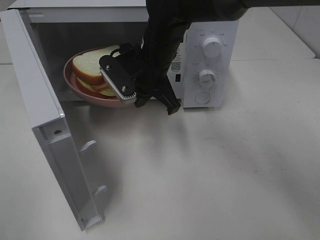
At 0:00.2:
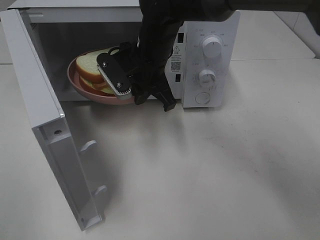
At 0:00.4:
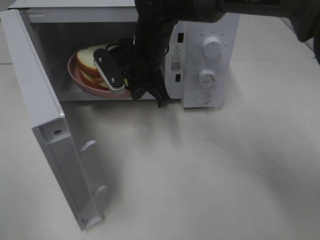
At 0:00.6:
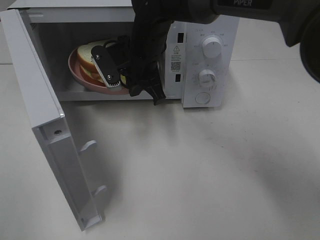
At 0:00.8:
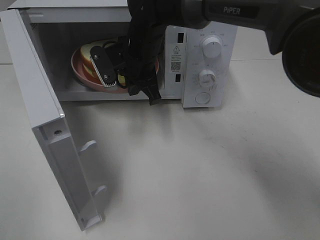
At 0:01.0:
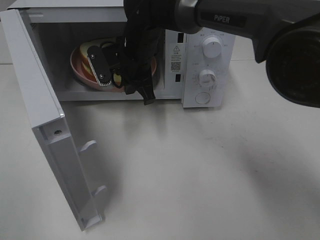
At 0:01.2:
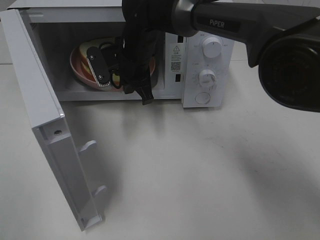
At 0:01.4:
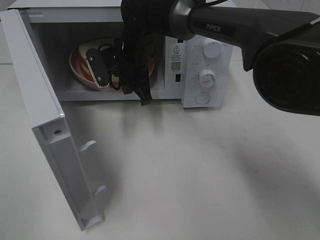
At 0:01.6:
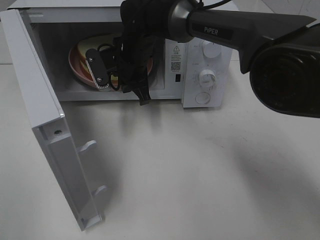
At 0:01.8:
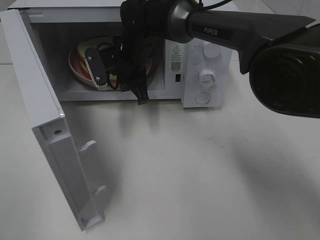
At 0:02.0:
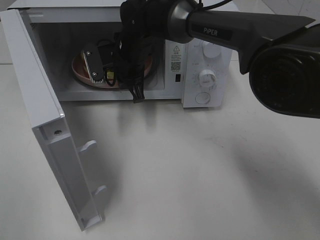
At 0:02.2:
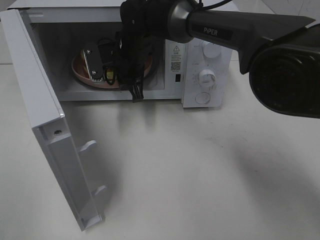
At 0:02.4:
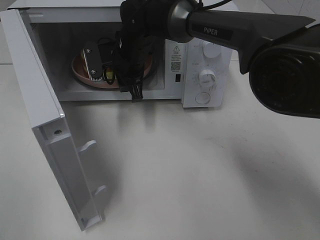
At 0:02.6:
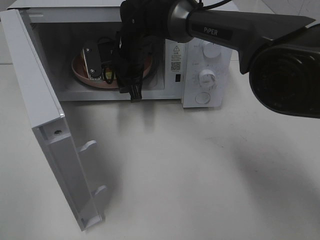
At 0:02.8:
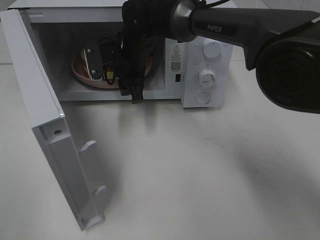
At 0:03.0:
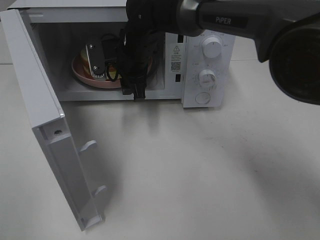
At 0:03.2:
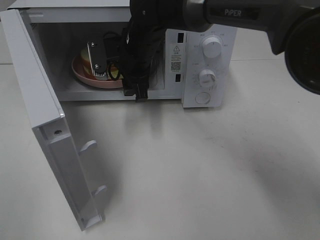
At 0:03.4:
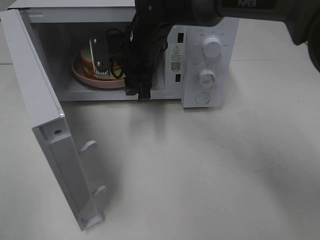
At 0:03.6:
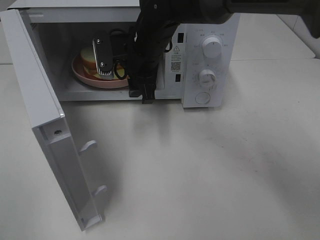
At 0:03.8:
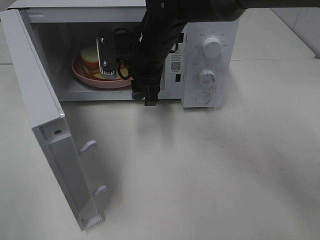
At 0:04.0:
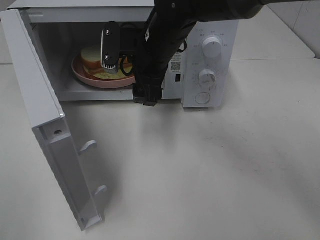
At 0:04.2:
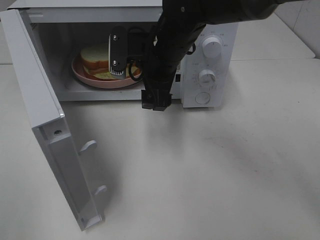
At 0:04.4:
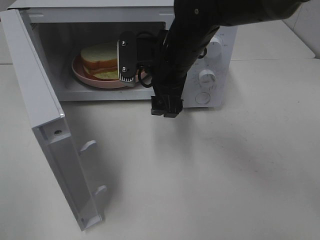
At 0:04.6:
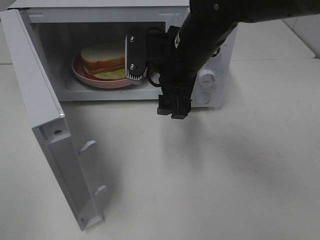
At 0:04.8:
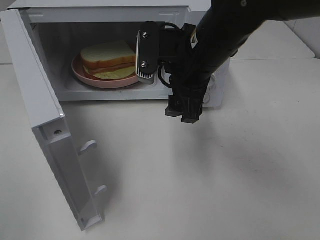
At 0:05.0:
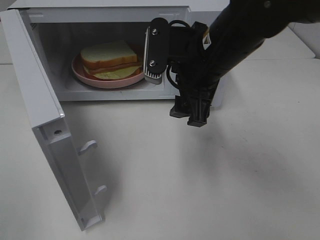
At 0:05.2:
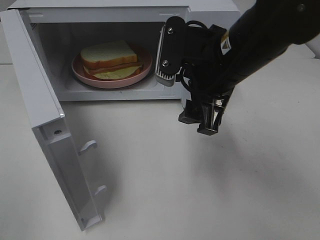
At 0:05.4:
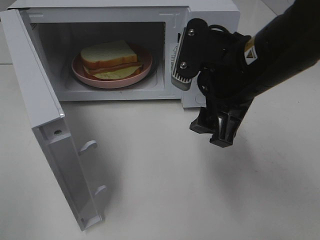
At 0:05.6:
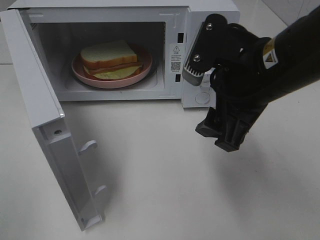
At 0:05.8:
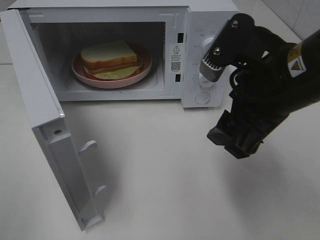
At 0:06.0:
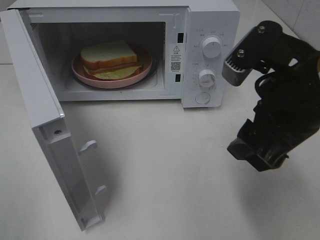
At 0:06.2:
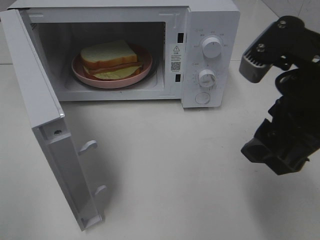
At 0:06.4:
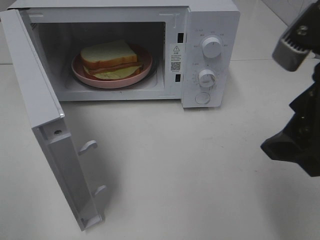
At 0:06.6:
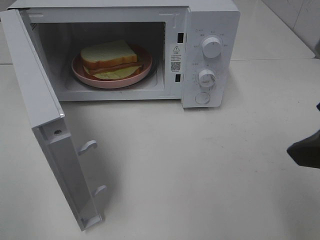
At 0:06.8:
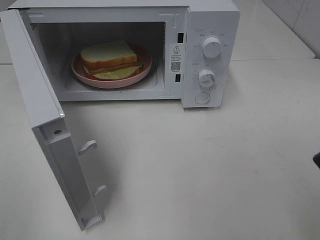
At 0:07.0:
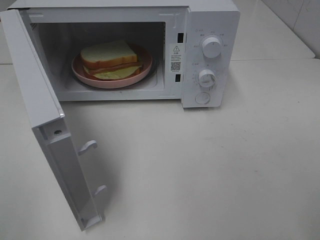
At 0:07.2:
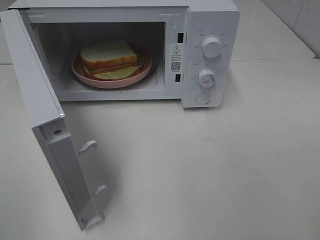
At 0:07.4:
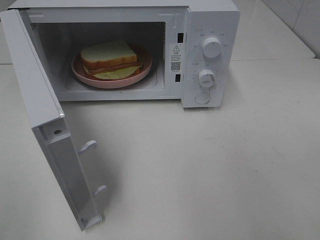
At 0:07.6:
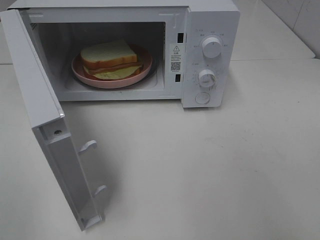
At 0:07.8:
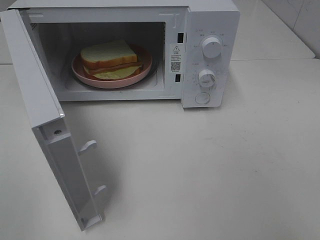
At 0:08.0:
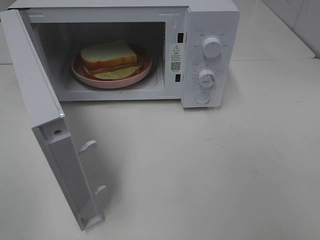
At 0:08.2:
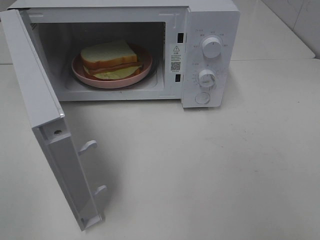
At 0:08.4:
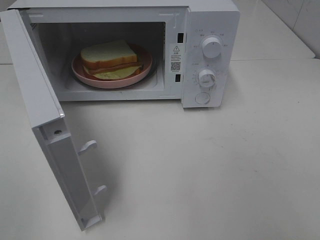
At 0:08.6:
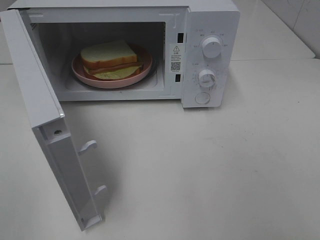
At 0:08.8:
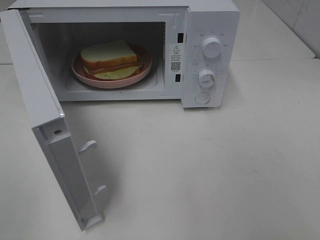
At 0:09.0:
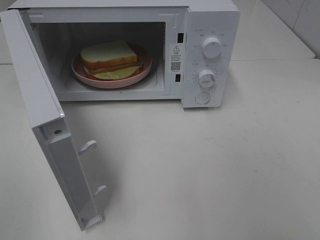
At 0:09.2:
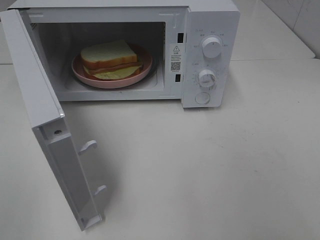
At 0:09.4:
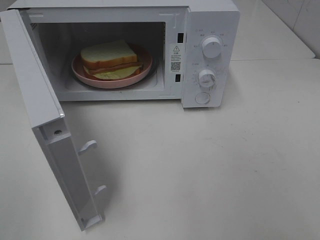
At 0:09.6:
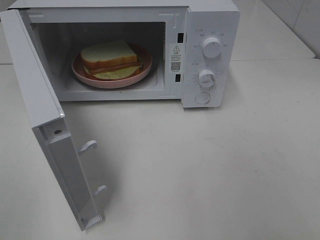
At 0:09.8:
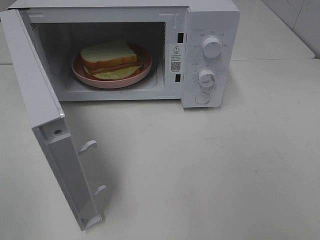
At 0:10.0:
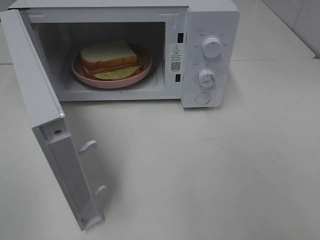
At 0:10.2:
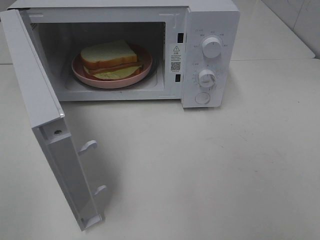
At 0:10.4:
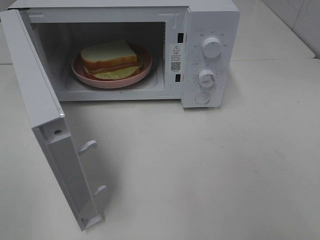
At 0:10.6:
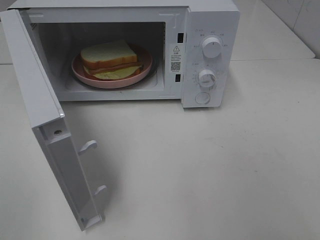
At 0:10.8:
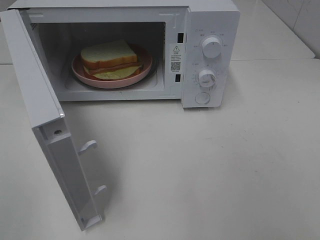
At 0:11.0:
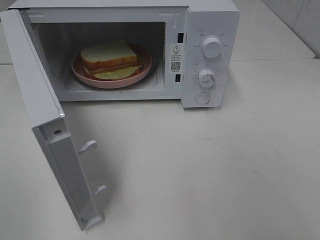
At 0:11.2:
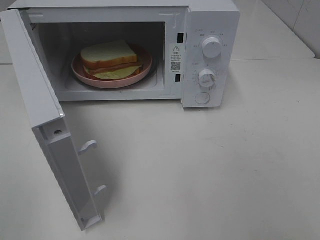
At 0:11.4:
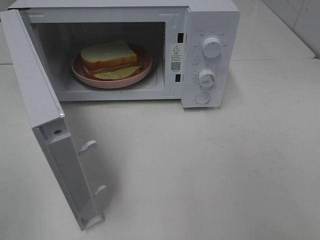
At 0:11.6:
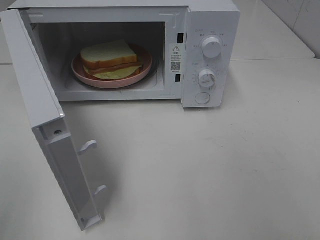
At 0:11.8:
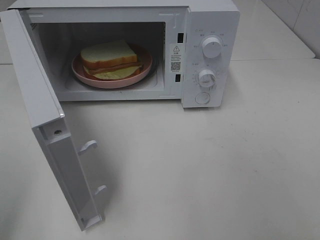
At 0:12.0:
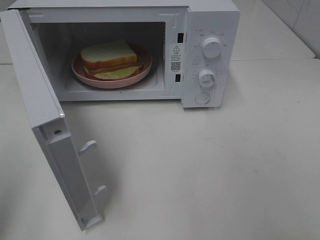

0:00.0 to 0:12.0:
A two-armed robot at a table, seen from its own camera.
Task of the whole recording: Heat Sandwich.
Step, 0:00.0 to 0:03.4: Right hand: place the plate in the microwave.
0:00.0 to 0:01.6: The right gripper is displaced forward by about 5 cm.
0:01.6 to 0:03.0: The right gripper opens.
0:03.0 to 0:04.4: The right gripper heads backward and to the right, covering approximately 10 cm, and opens.
0:04.4 to 0:06.0: The right gripper heads backward and to the right, covering roughly 20 cm.
0:06.0 to 0:07.6: The right gripper moves backward and to the right, approximately 15 cm.
0:09.0 to 0:10.4: The two grippers keep their place.

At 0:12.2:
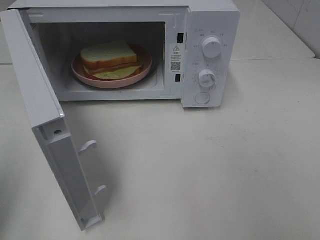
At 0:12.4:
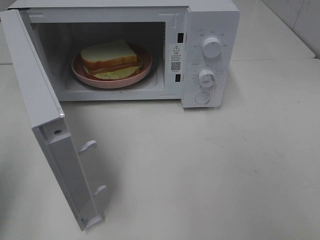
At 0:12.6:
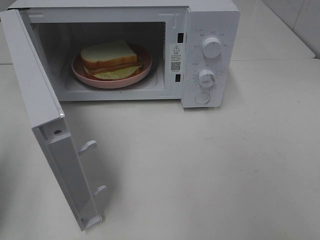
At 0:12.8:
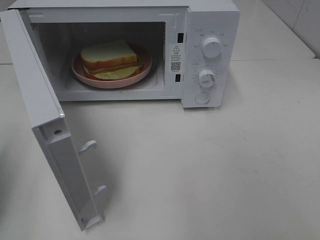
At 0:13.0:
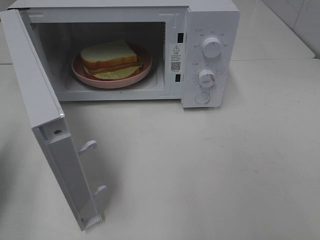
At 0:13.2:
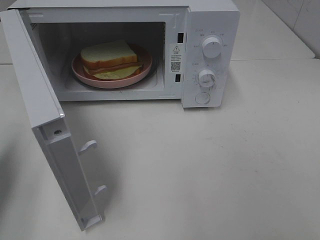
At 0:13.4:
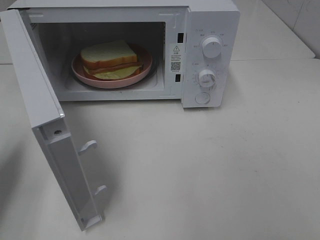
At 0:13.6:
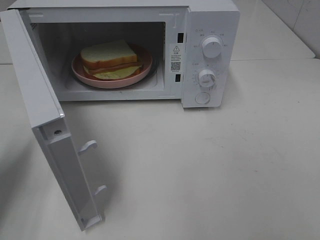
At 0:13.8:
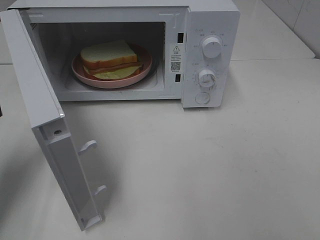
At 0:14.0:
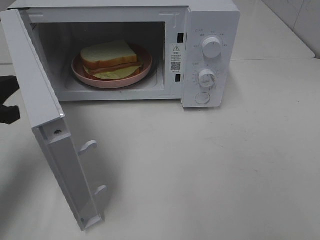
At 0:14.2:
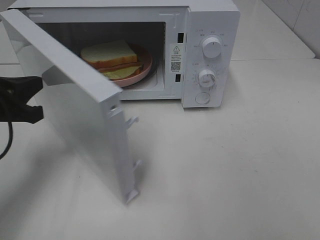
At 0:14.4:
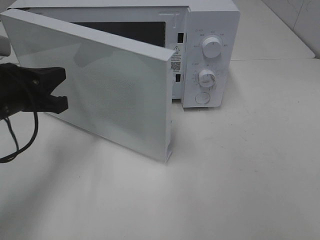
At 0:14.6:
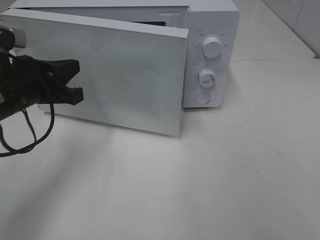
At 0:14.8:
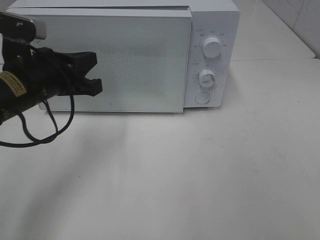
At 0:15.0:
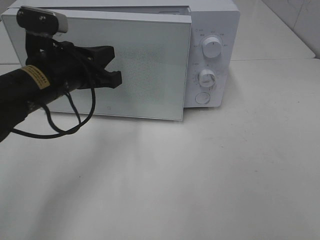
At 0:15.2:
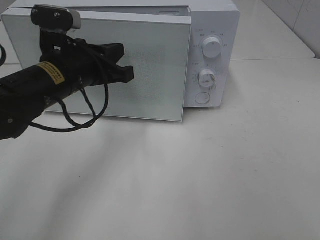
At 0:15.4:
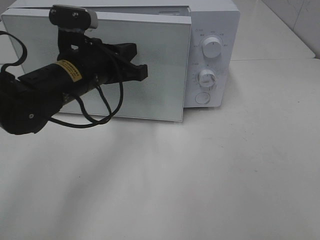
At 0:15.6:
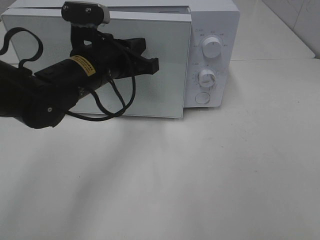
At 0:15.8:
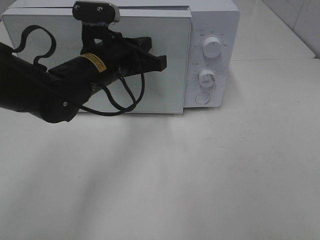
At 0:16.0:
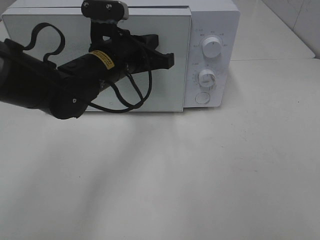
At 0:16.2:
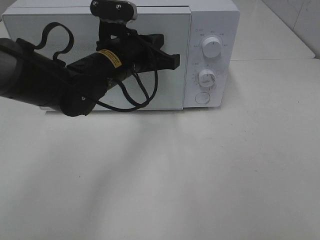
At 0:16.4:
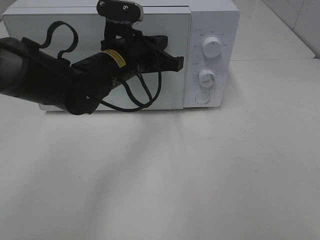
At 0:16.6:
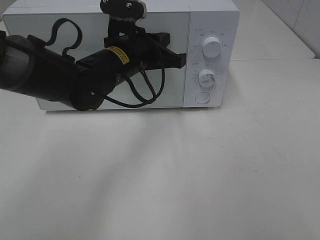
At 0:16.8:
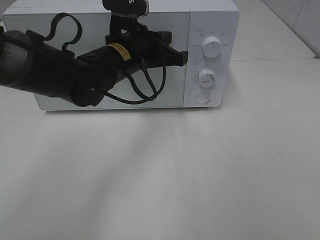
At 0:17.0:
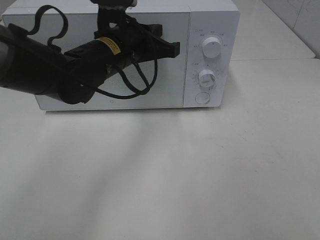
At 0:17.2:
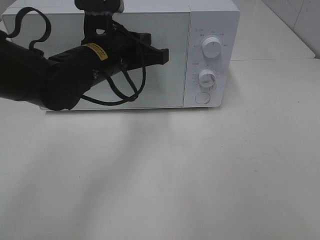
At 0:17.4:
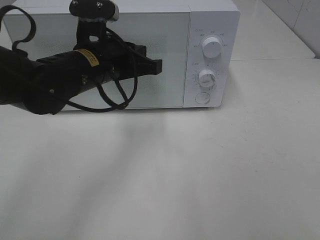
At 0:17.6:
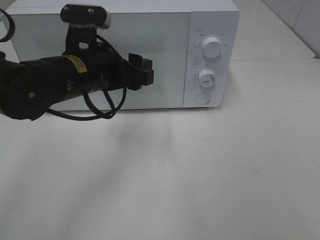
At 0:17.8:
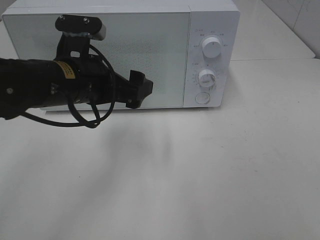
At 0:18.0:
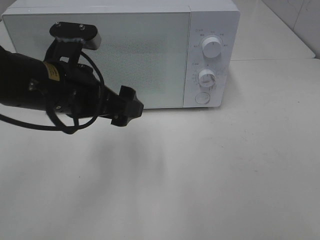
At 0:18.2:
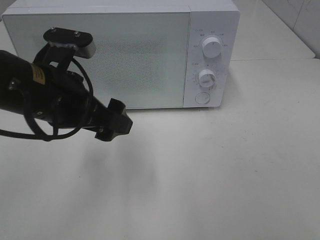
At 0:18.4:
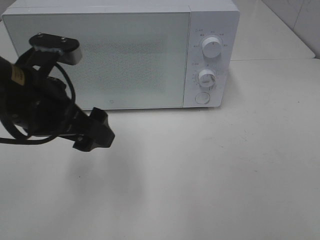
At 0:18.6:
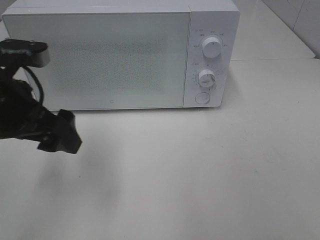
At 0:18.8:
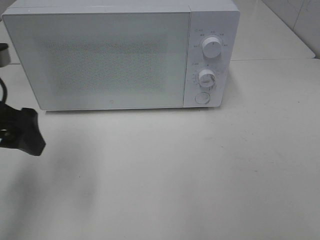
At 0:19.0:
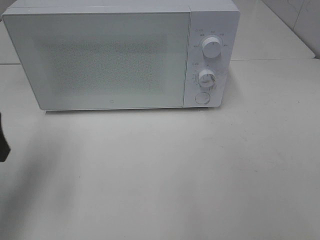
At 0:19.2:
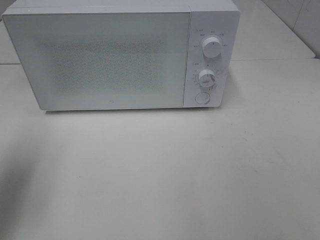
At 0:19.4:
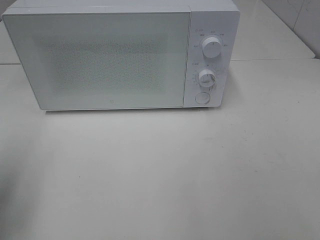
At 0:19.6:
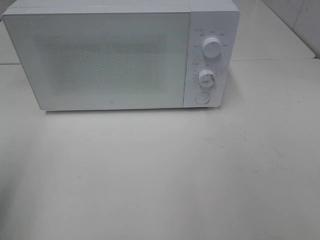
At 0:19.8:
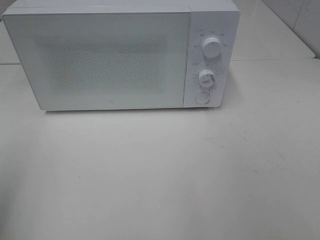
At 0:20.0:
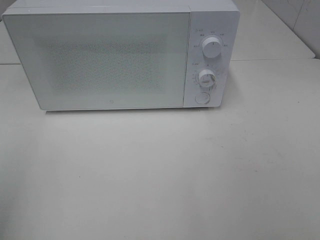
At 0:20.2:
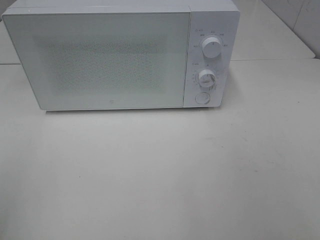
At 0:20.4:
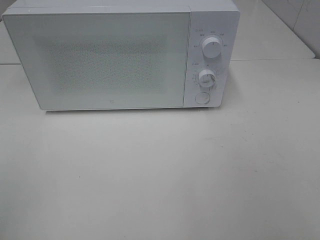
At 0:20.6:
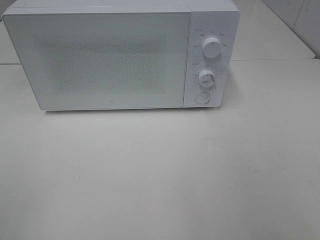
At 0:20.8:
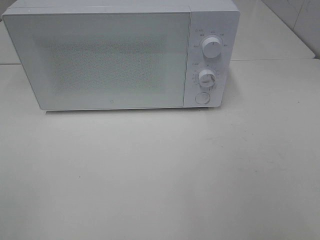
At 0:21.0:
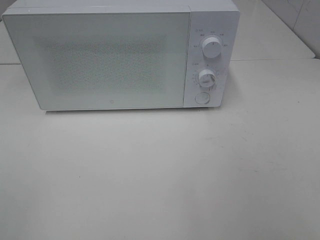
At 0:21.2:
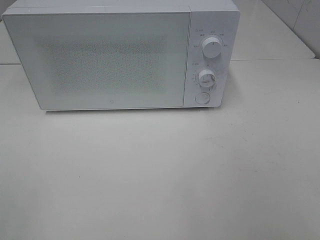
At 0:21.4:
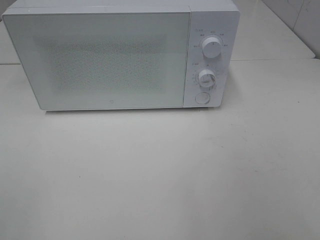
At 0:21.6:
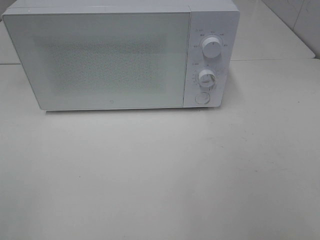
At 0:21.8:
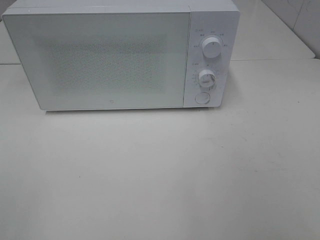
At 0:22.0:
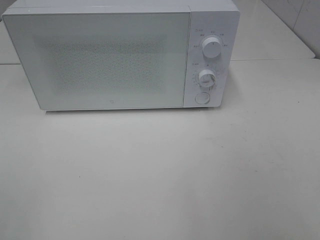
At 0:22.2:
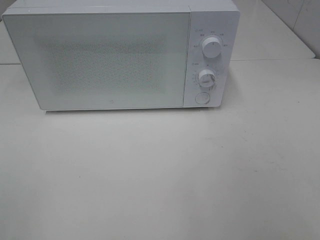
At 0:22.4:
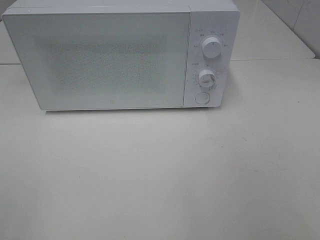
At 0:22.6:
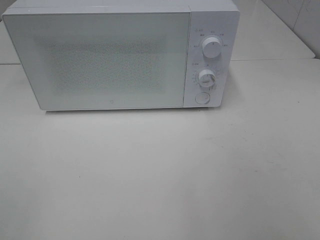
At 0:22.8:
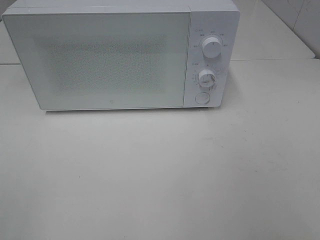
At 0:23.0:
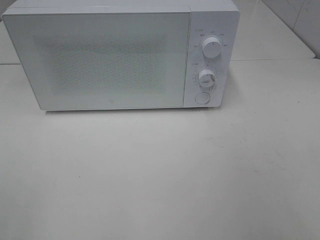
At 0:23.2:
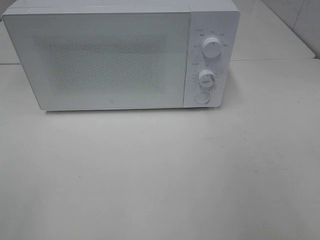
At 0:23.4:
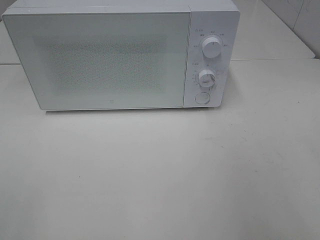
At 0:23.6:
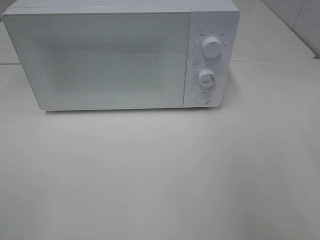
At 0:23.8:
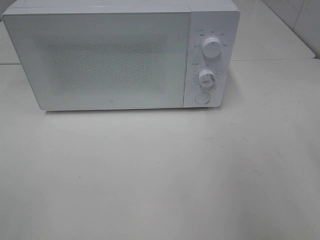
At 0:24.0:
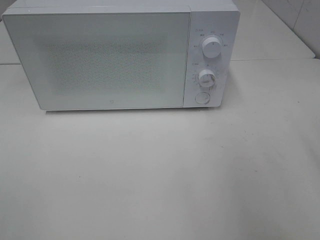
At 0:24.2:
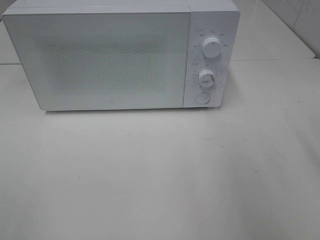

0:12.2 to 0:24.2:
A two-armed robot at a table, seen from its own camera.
Task of the whole recording: Heat Sandwich.
Step, 0:12.2 to 0:16.6: Left hand: close the microwave door.
0:12.2 to 0:13.8: The left gripper travels forward and downward by roughly 15 cm.
0:13.8 to 0:15.2: The left gripper heads to the right, covering approximately 15 cm.
0:15.2 to 0:16.6: The left gripper goes about 10 cm to the right and forward.
0:16.6 to 0:18.2: The left gripper goes approximately 15 cm backward and to the left, and opens its fingers.
0:18.2 to 0:19.8: The left gripper heads to the left, backward and upward, covering some 25 cm.
0:21.2 to 0:22.6: Both grippers stay put.
